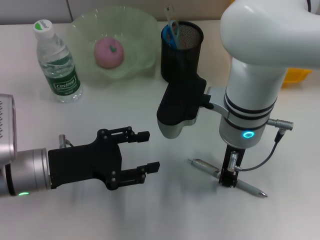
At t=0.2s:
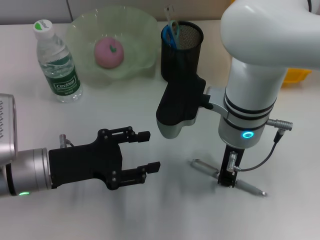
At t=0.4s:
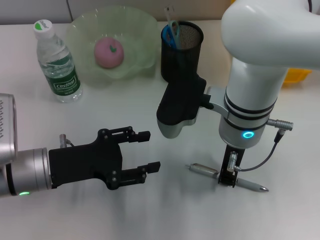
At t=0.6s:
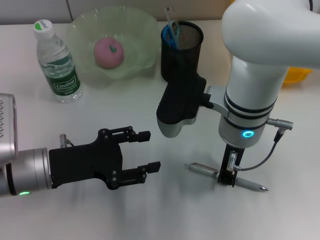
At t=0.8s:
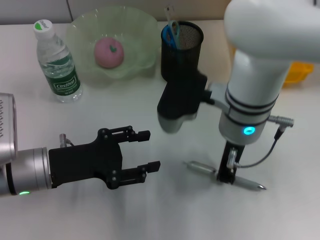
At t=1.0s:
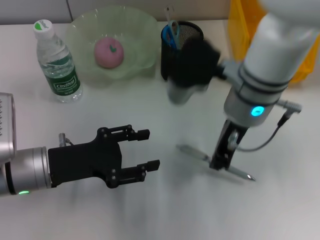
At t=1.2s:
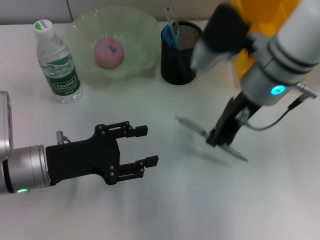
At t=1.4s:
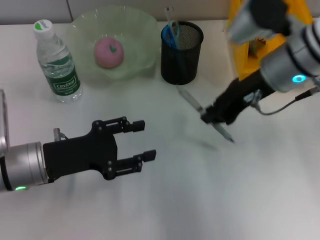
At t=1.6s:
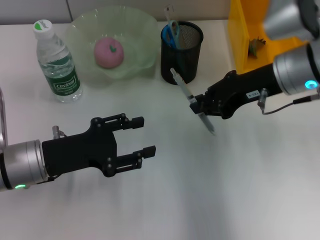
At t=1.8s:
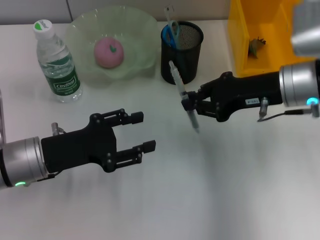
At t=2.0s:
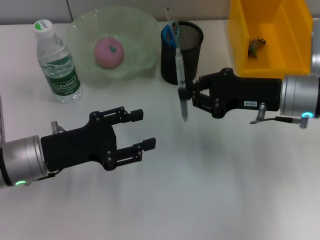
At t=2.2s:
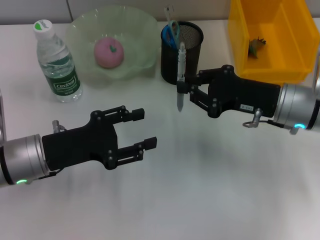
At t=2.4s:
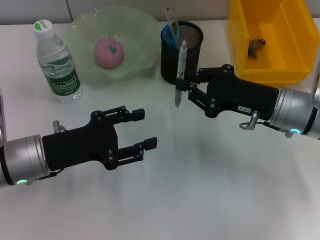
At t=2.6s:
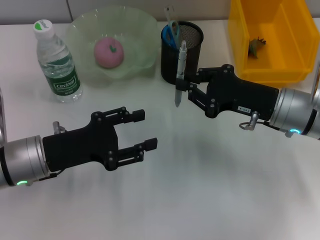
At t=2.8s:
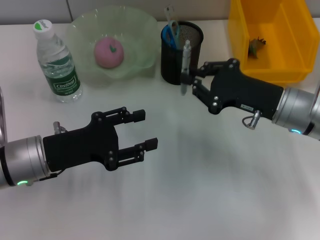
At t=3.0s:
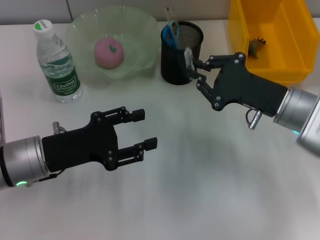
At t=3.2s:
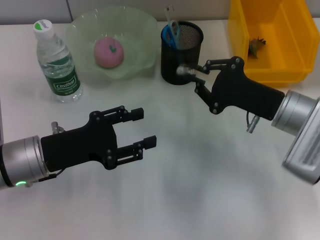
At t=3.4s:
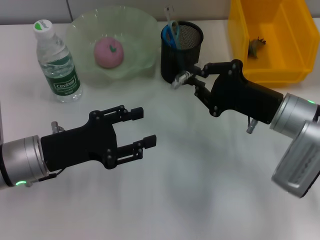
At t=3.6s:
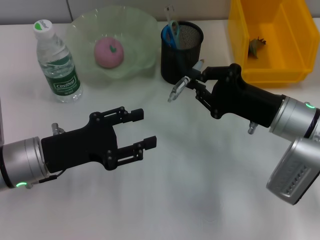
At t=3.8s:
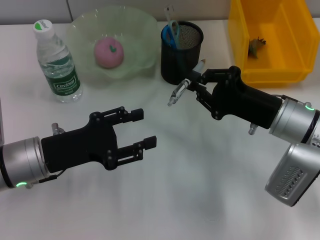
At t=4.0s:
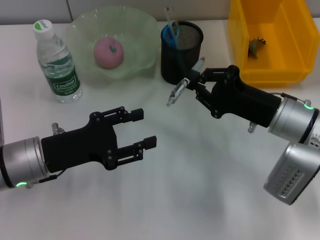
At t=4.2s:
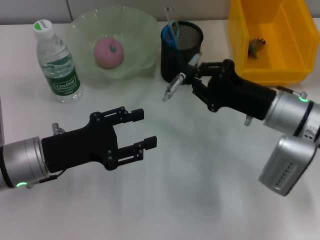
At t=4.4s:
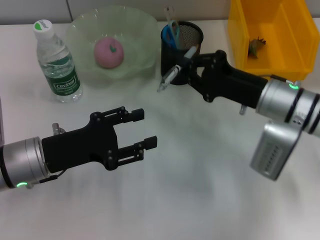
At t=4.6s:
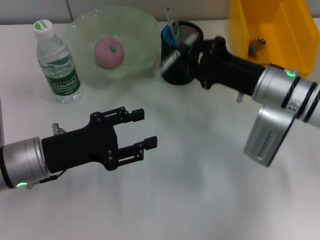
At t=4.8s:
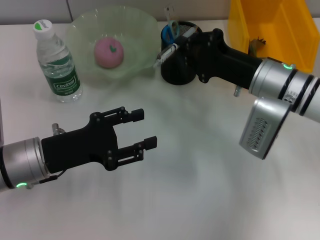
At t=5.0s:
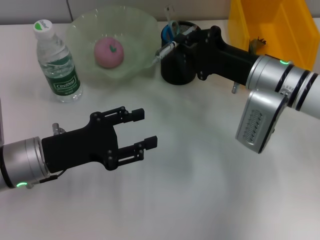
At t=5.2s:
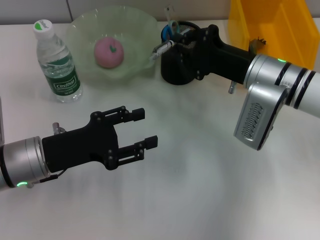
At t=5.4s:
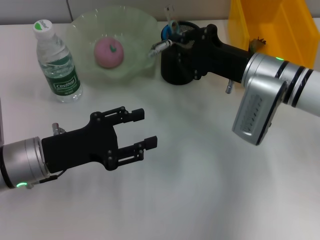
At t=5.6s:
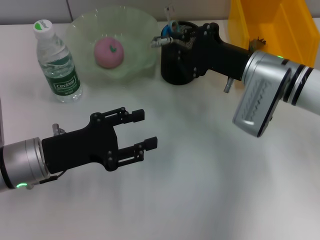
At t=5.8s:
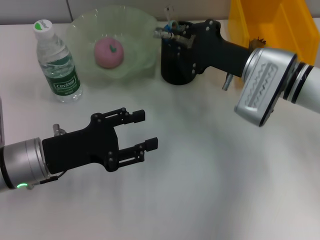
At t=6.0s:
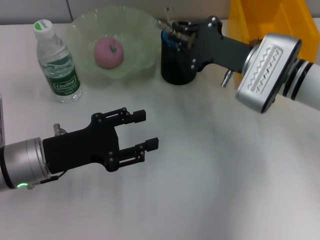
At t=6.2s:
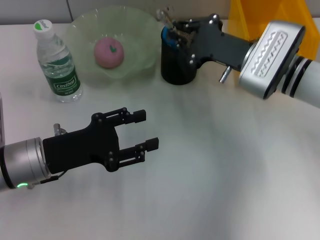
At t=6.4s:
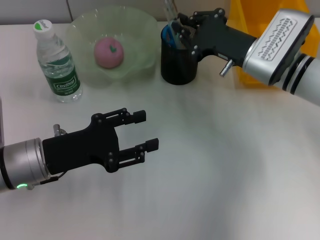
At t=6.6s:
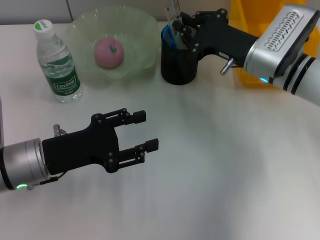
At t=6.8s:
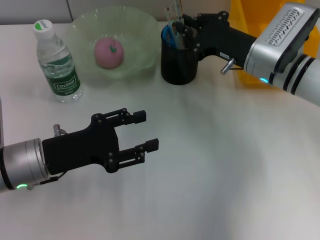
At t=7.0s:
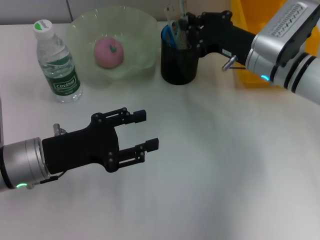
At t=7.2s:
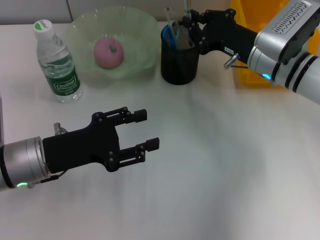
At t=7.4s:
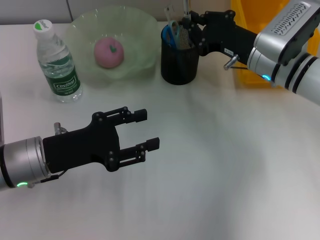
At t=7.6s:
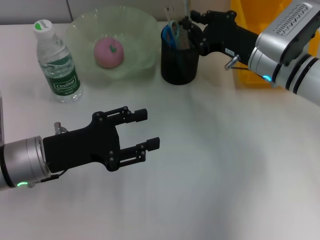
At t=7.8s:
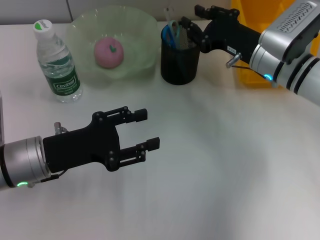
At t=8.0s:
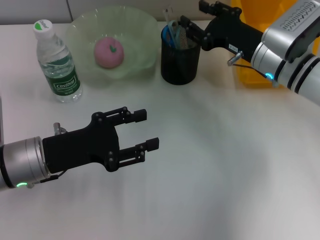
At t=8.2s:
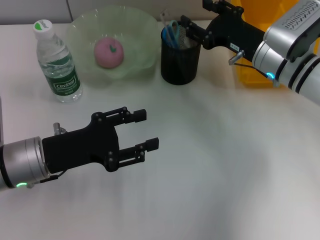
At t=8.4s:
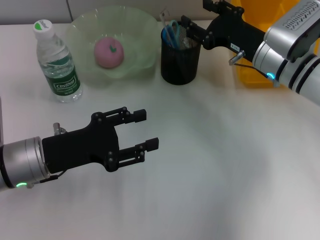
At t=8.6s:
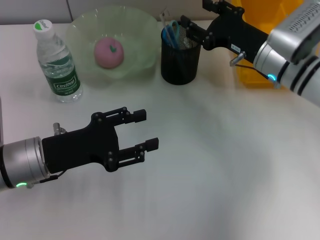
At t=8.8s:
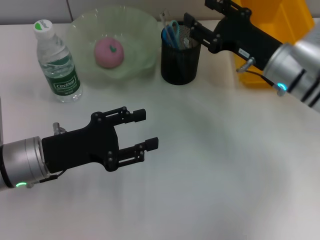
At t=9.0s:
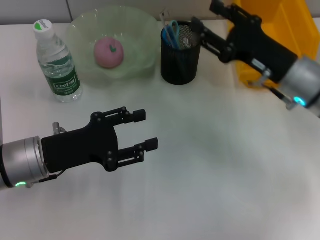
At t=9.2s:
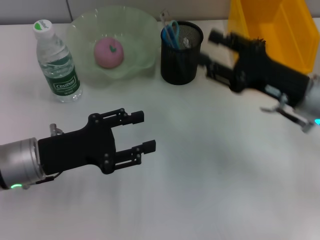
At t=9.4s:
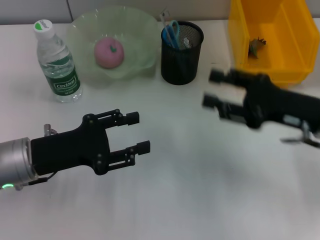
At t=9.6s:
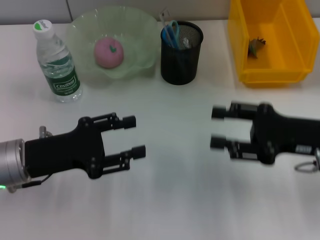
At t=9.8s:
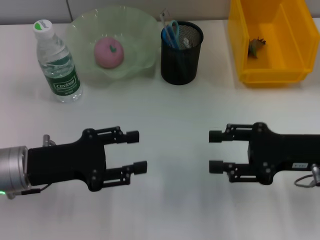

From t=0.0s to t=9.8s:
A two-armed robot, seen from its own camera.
Step, from t=0.6s to t=7.8s: Place the gray spring-action pen into the pen holder with the right hand.
From t=0.0s to t=1.4s: The right gripper goes roughly 10 cm to the right.
From t=1.4s to t=2.8s: The right gripper shifts approximately 10 cm downward.
From t=4.2s to t=5.6s: The right gripper goes approximately 5 cm forward.
From t=7.0s to t=8.4s: The right gripper opens its fingers.
From t=8.4s to t=9.8s: The right gripper travels backward and to the right by some 15 cm.

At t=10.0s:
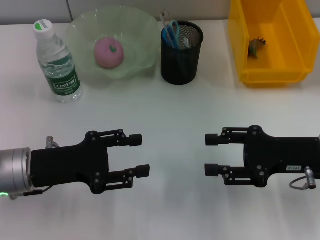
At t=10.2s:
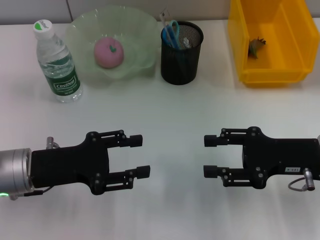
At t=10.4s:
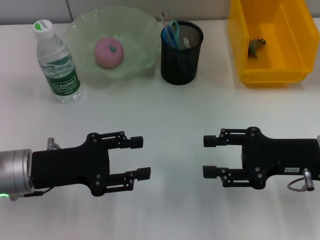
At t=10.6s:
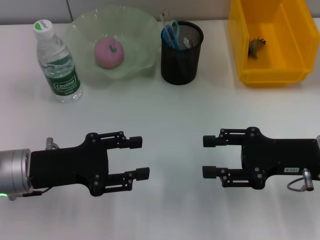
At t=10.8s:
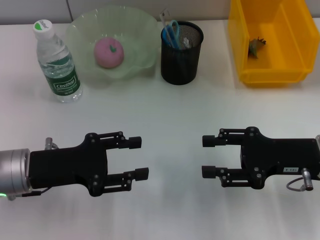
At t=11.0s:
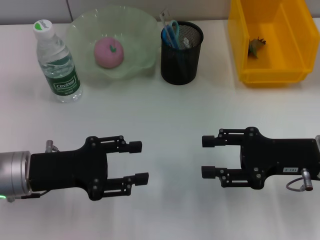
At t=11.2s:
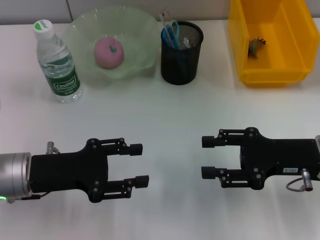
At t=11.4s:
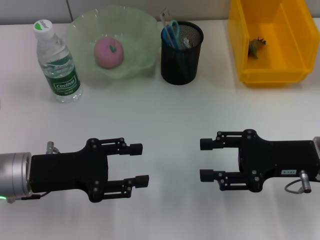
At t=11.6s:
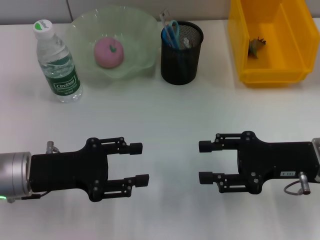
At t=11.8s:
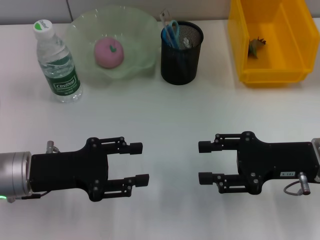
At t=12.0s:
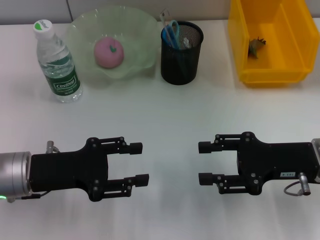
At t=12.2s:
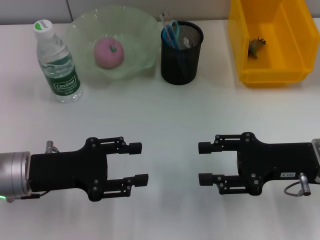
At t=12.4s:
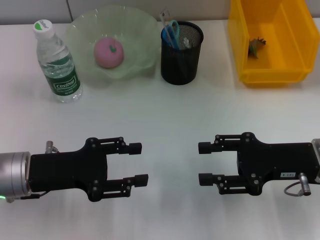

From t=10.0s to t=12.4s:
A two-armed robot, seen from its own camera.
From t=10.0s to t=12.4s: Both grippers stay put.
